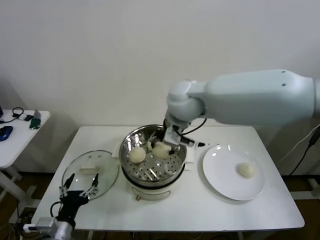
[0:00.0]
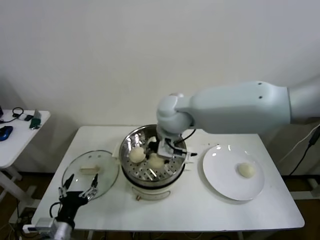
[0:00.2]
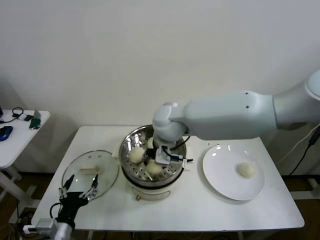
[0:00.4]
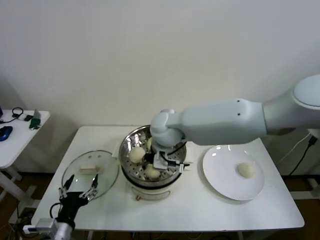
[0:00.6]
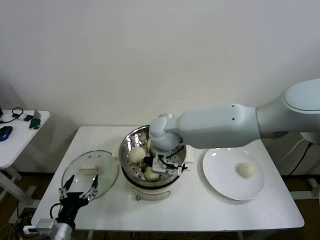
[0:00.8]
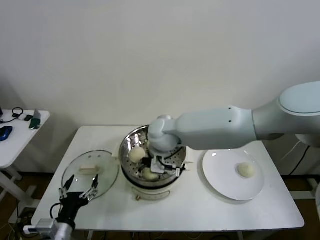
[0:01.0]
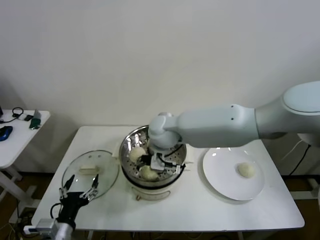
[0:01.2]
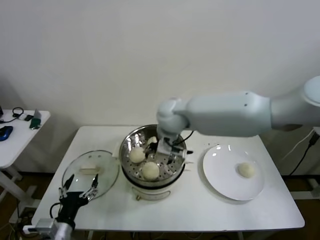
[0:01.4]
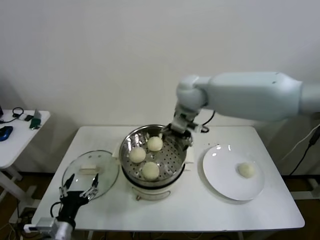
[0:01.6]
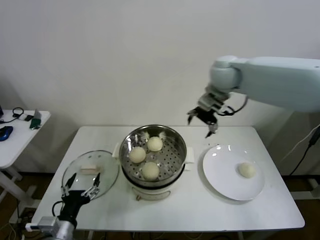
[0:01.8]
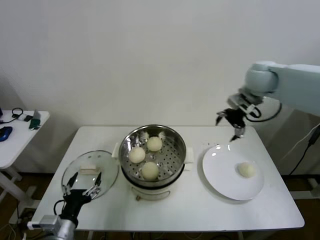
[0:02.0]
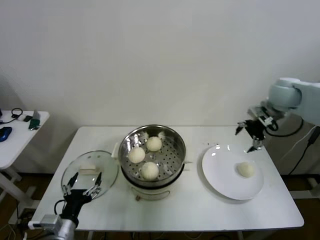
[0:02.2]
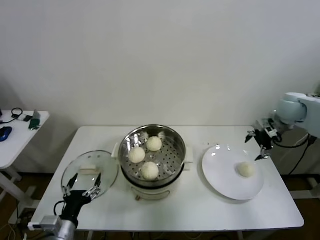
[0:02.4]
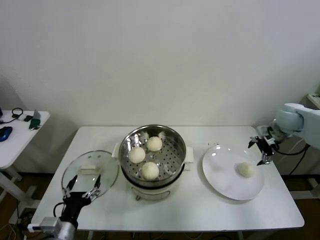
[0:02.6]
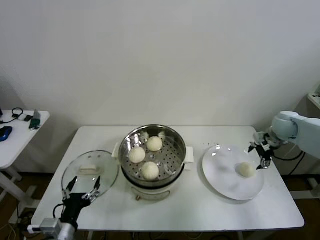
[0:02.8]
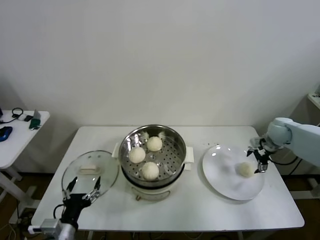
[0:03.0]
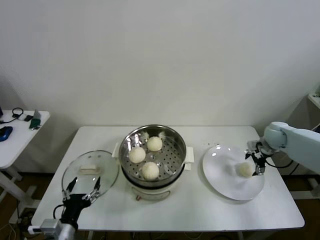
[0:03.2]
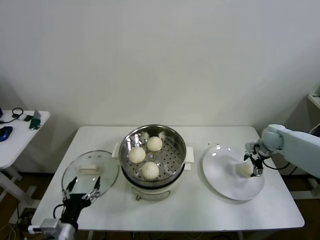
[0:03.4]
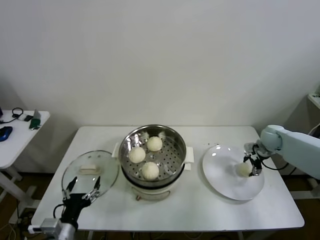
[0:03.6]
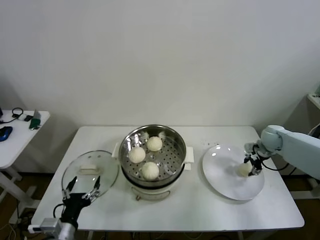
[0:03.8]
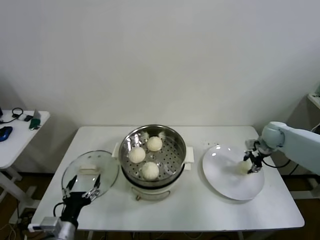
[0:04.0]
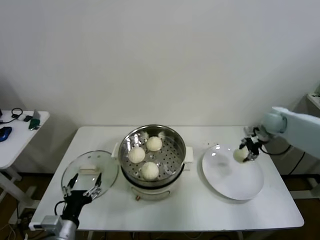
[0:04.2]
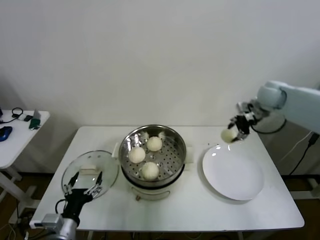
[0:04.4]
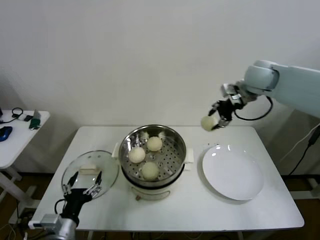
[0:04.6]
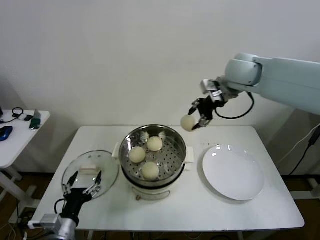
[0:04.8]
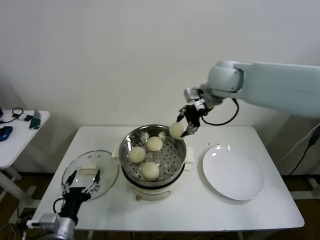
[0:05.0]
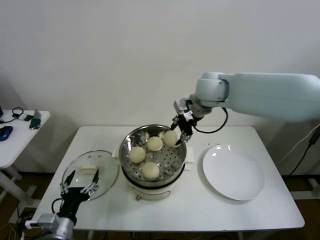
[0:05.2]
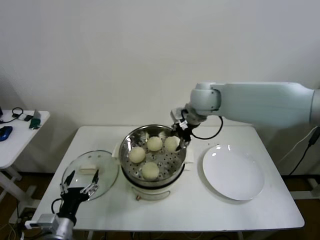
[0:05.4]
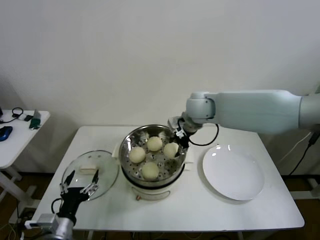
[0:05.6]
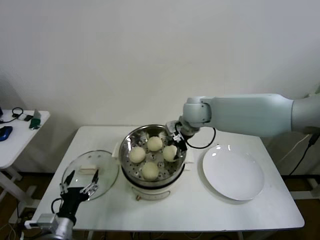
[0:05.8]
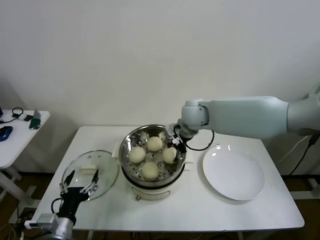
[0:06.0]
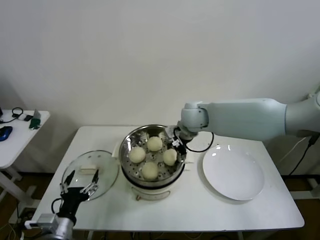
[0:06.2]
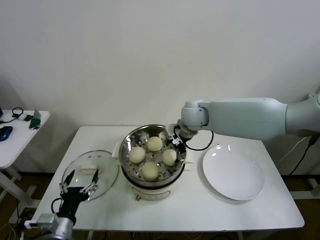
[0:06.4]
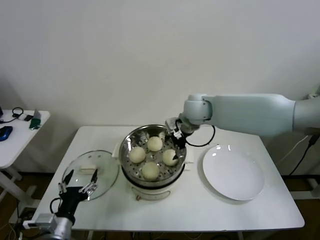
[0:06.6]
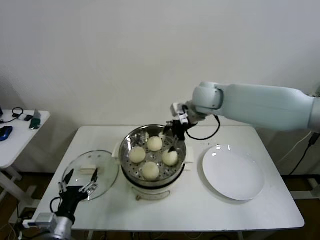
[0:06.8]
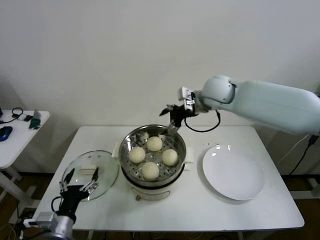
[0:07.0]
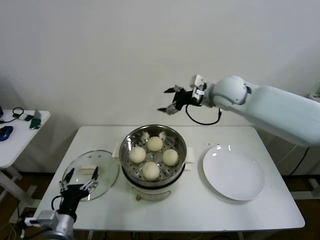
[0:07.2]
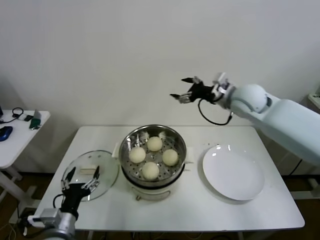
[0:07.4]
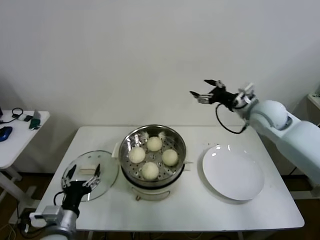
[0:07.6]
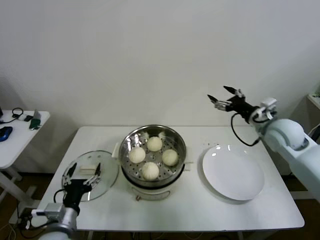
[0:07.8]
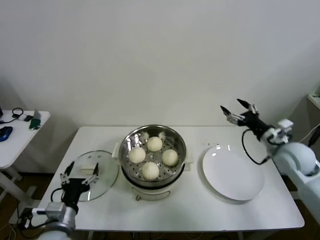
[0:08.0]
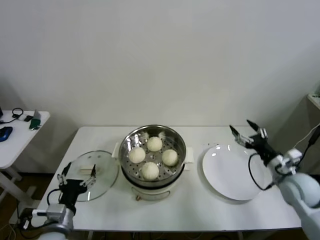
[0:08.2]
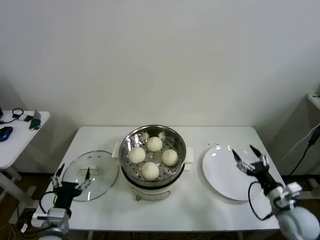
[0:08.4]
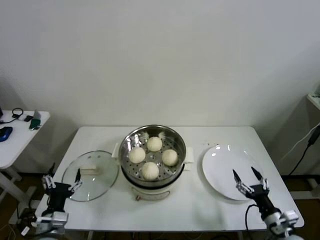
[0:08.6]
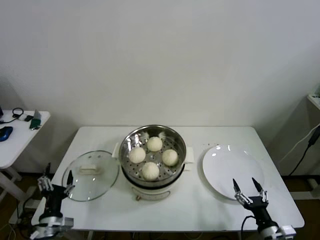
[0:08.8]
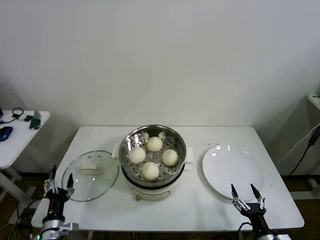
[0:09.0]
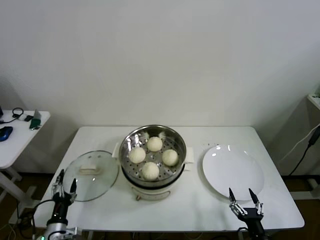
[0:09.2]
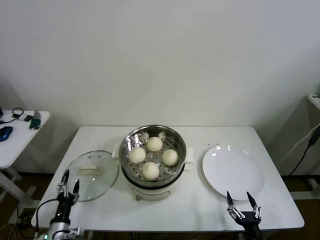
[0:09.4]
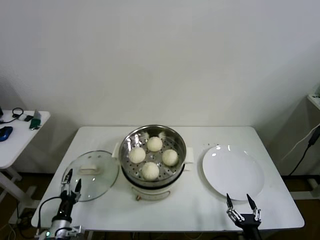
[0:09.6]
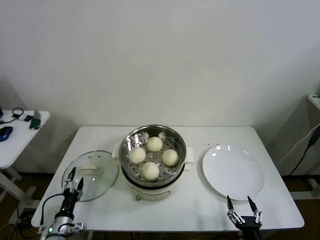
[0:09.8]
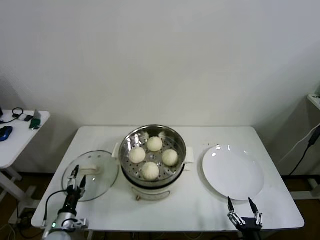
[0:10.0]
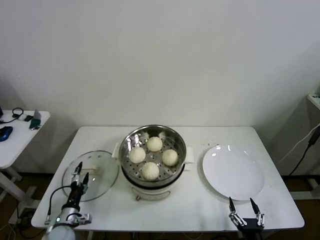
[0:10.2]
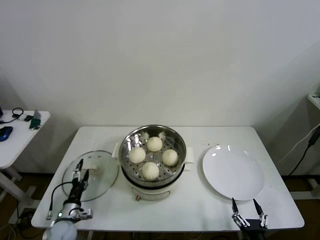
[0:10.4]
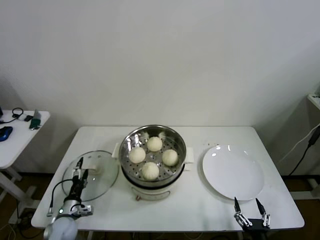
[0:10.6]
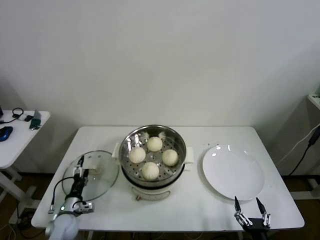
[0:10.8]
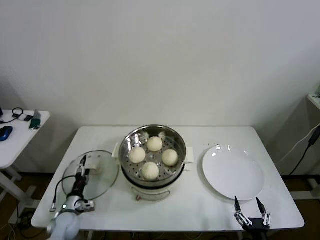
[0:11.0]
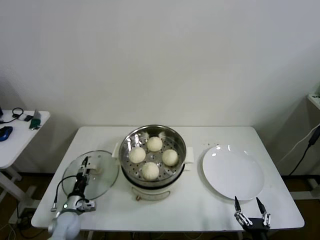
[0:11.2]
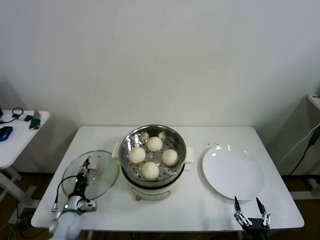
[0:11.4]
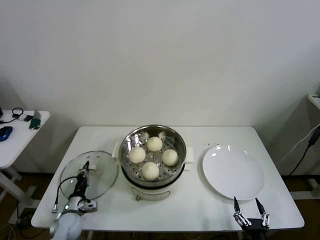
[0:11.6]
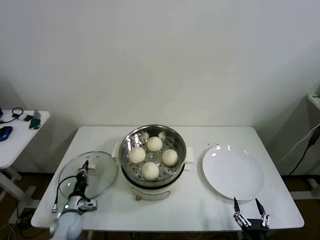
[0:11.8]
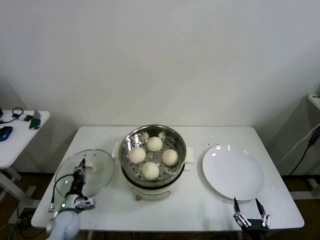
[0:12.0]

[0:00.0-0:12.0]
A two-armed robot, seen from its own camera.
Step, 0:01.4 to 0:03.8: Grasp the baozi in the plate with right gripper.
Step, 0:04.0 to 0:06.4: Place the baozi on the steamer with right gripper.
Step, 0:06.6 to 0:11.6: Grasp the pot lid with left gripper.
0:00.0 to 0:01.6: The right gripper goes approximately 5 cm forward, goes downward and returns, approximately 10 cm each way, and opens up.
0:01.6 to 0:03.0: The right gripper goes some 40 cm to the right and downward.
0:03.0 to 0:04.4: The right gripper shifts roughly 15 cm upward and to the left, and closes its fingers.
0:04.4 to 0:06.0: The right gripper moves to the left, some 25 cm.
0:06.0 to 0:07.6: The right gripper travels to the right by some 20 cm, and opens its fingers.
0:07.6 to 0:09.0: The right gripper heads backward and downward, covering approximately 50 cm; the left gripper is displaced downward and to the left by about 10 cm.
0:09.0 to 0:10.4: The right gripper changes place by approximately 5 cm, while the left gripper moves downward and forward, approximately 10 cm.
0:10.4 to 0:12.0: The left gripper closes its fingers.

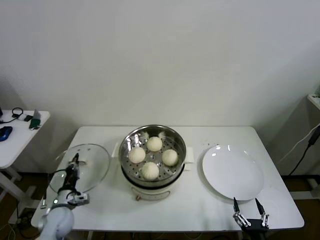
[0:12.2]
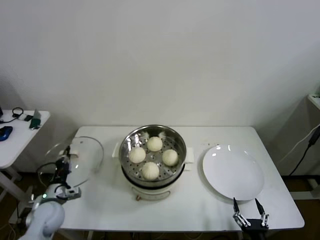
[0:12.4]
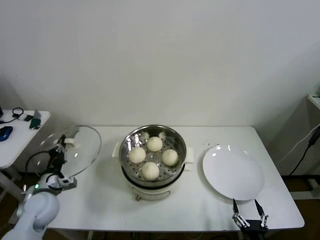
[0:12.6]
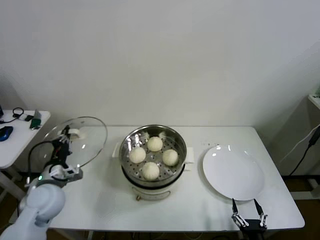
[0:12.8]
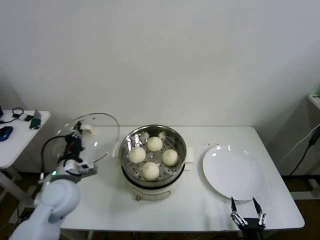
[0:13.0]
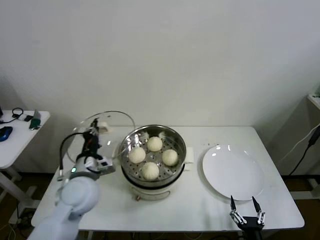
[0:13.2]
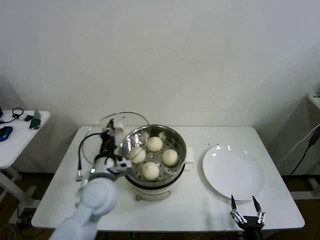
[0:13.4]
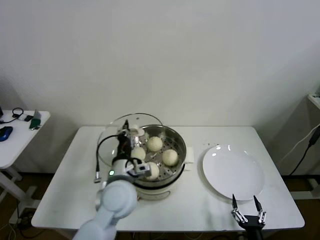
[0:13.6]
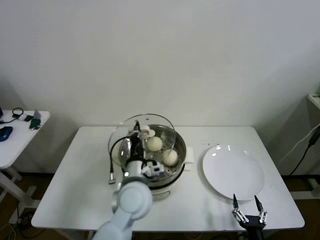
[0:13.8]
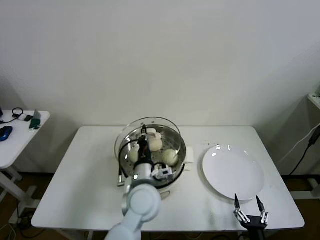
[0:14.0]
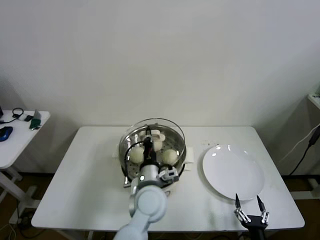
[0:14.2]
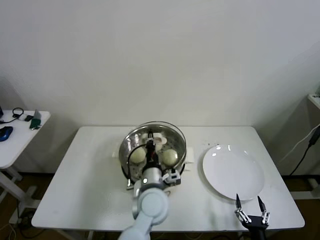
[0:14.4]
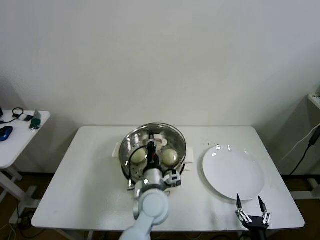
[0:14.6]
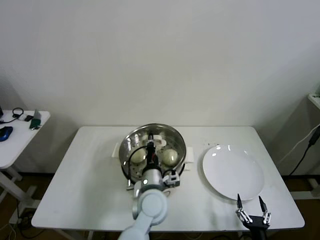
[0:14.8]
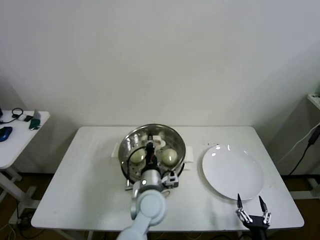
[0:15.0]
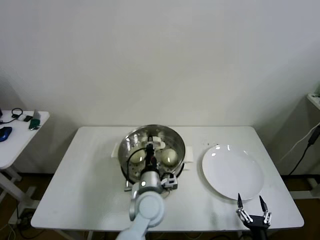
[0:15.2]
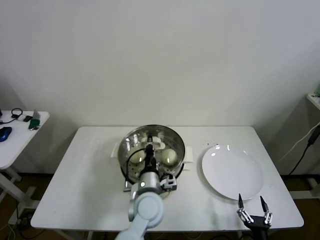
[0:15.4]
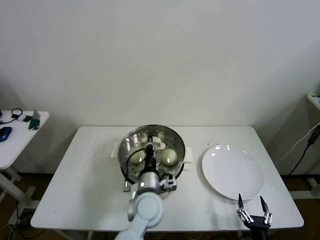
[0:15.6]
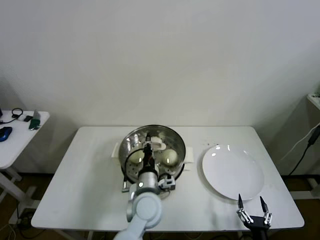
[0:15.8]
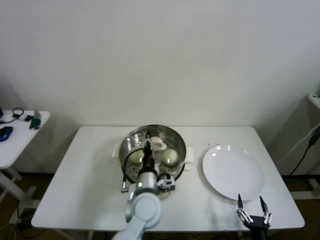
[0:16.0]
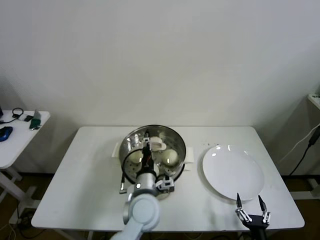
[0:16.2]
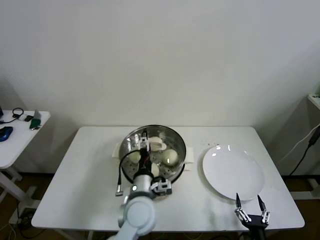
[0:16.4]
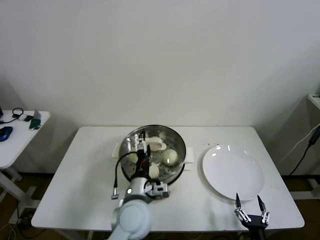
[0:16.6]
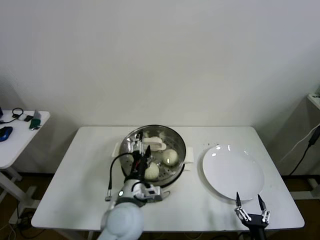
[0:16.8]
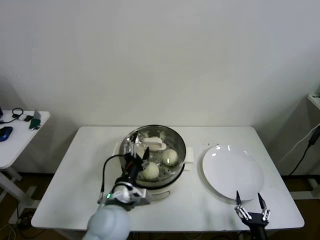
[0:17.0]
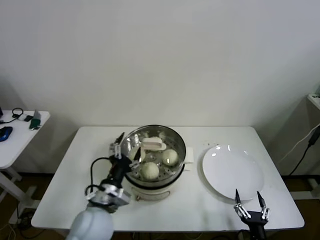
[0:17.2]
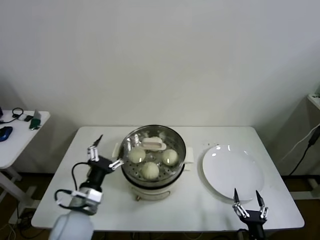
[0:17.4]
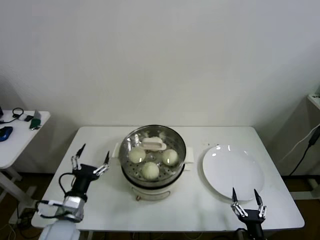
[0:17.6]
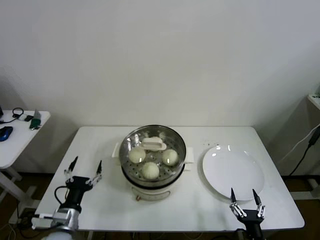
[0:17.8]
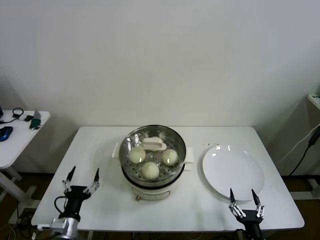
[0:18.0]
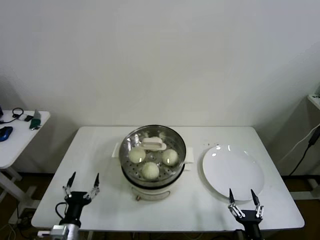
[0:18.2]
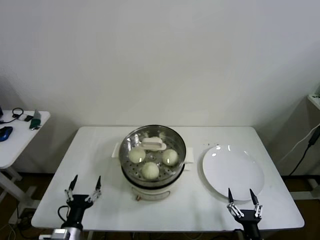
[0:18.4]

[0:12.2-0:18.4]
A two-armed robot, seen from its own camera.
Step, 0:12.2 to 0:16.0: Place the pot lid on the steamer with left gripper.
0:12.2 to 0:13.8: The left gripper goes some 35 cm to the right and upward.
0:13.8 to 0:15.4: The left gripper shifts about 5 cm downward.
0:15.4 to 0:16.8: The left gripper shifts by some 5 cm, and opens up.
0:16.8 to 0:18.4: The left gripper moves to the left, downward and backward, some 25 cm.
